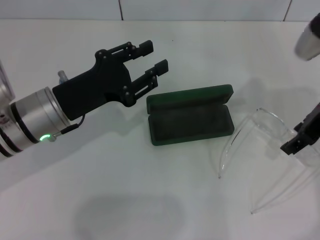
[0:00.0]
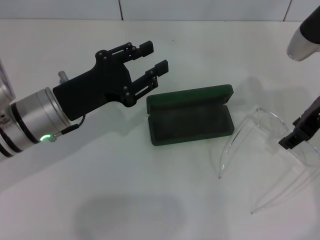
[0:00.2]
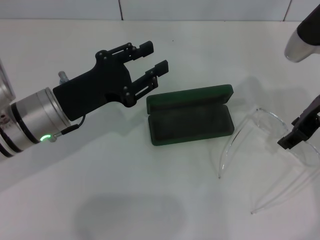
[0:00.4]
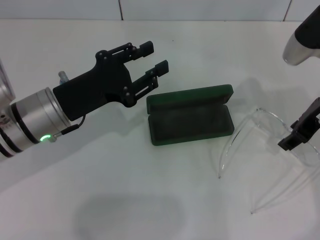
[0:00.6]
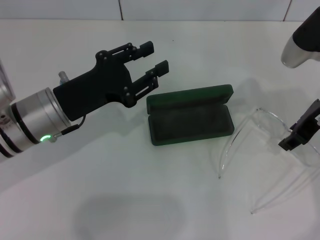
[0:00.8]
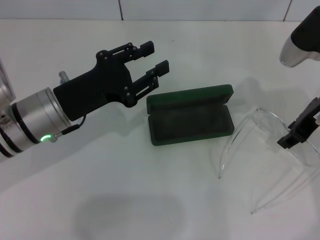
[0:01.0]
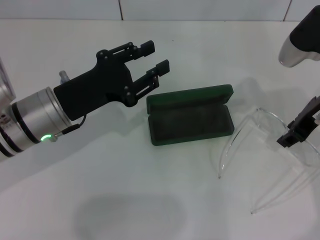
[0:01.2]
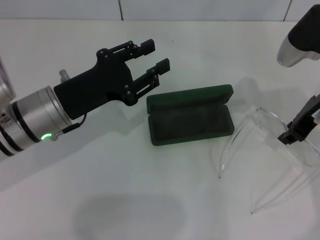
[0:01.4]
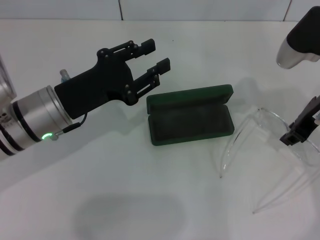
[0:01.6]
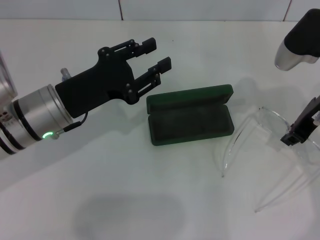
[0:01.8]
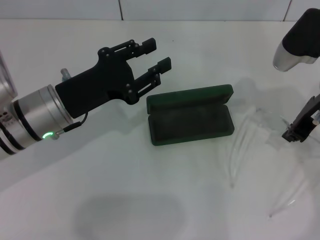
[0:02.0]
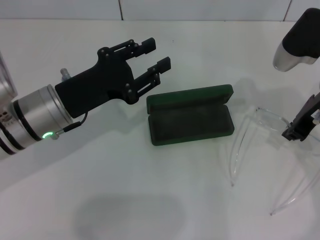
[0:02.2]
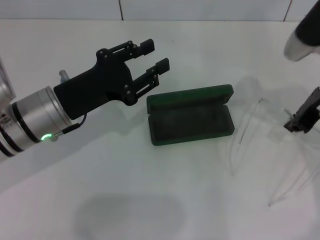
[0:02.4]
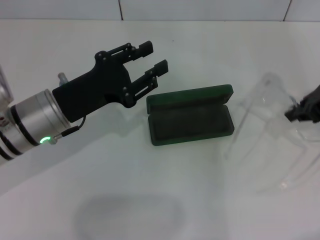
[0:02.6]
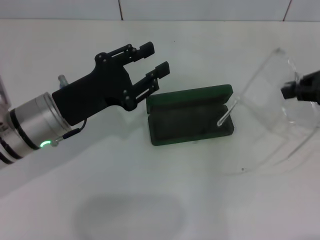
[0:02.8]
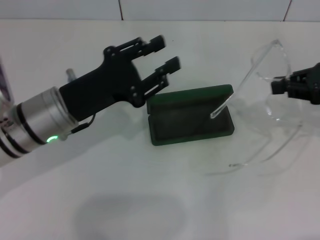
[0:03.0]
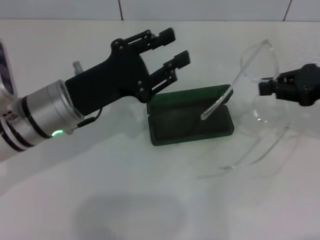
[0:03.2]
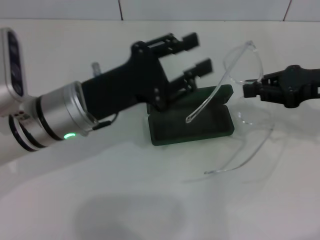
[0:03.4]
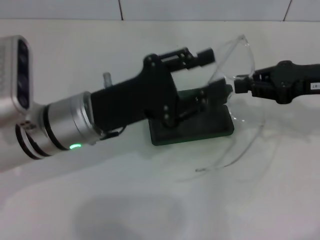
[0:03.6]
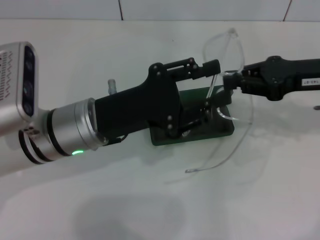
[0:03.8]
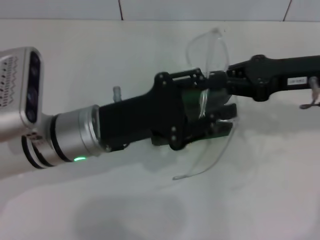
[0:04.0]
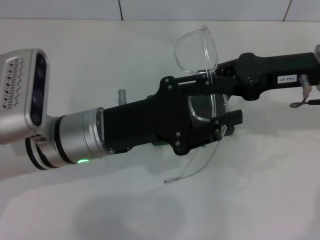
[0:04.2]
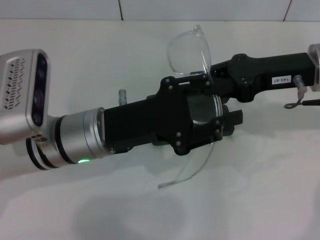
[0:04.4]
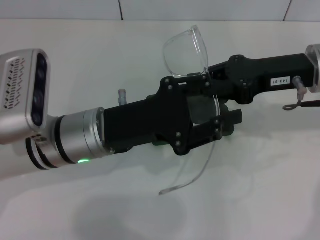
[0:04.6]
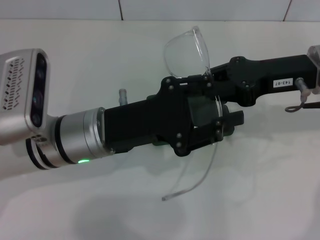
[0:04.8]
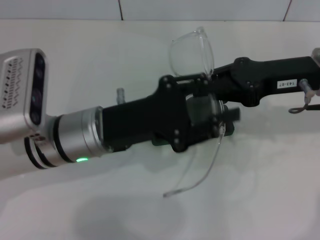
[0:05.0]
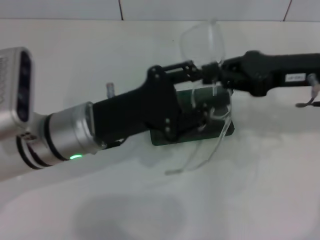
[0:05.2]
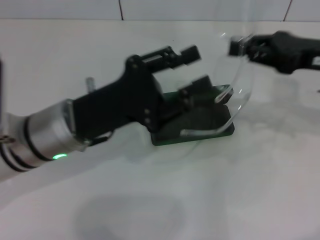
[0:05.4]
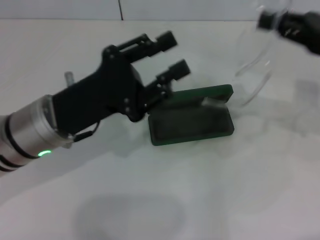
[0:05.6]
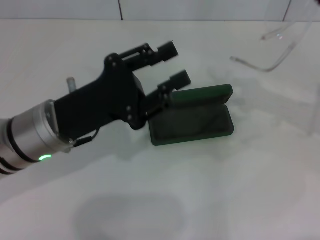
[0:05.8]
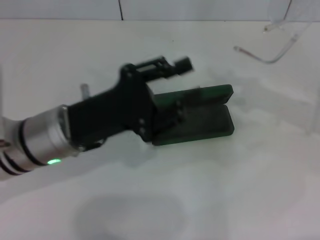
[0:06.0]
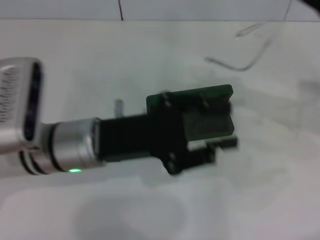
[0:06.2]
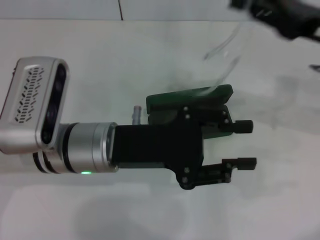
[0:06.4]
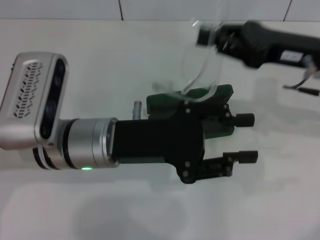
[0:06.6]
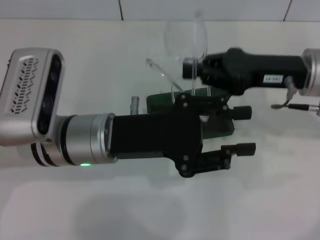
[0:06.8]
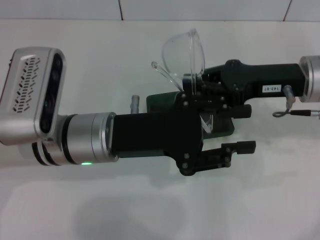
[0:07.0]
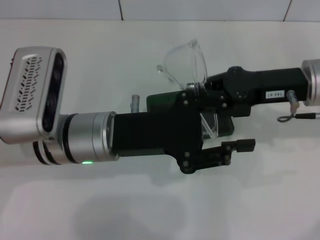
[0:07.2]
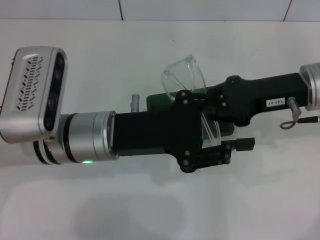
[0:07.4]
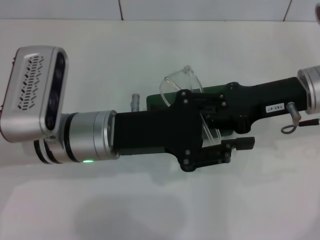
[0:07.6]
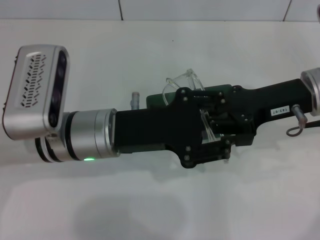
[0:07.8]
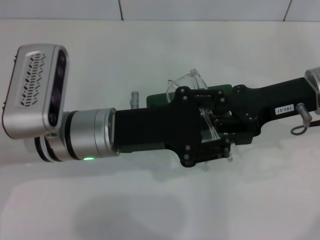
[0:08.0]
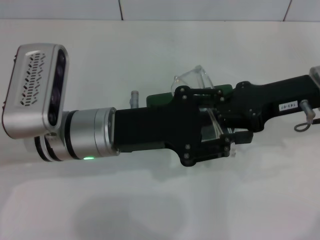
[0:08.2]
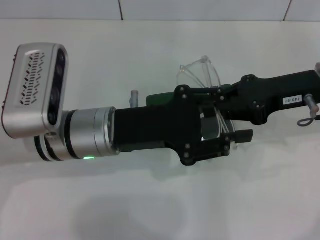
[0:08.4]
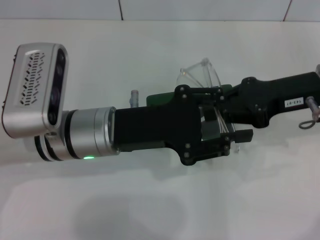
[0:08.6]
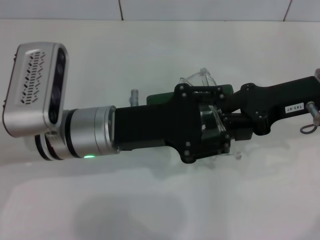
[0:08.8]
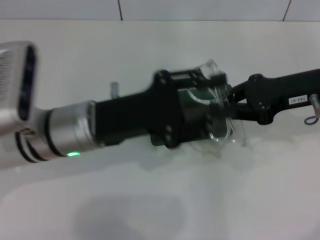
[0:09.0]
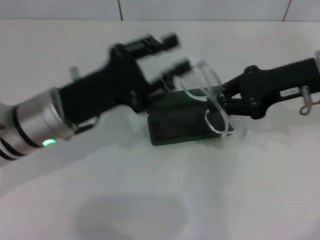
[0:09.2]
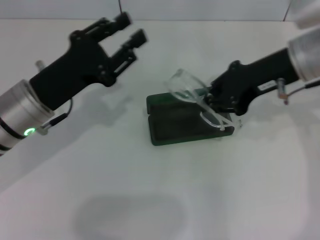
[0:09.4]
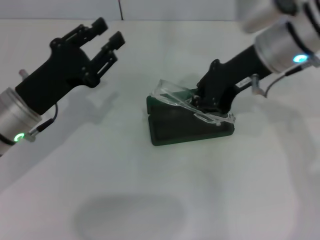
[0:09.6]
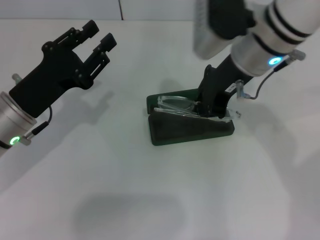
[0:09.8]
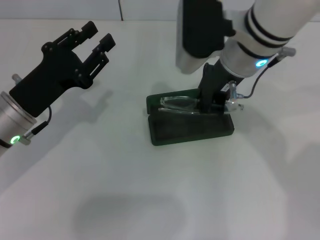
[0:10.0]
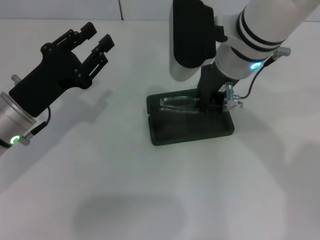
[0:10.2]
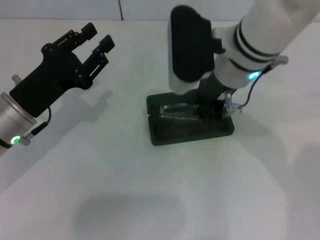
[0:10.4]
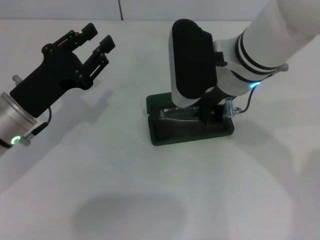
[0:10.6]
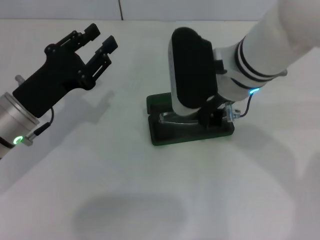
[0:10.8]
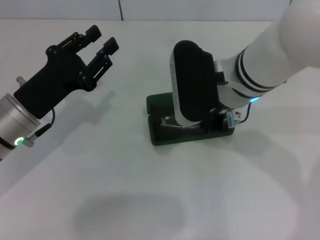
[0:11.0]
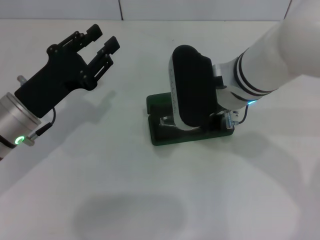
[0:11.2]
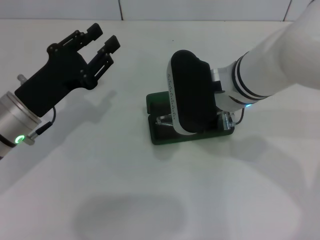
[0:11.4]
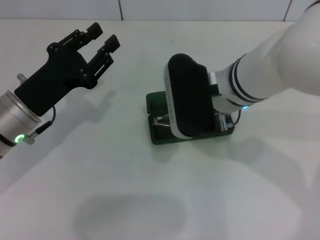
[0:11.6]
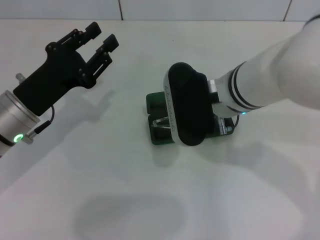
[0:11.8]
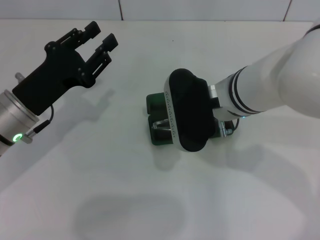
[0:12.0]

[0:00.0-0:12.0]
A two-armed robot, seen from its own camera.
Step, 0:02.2 to 0:07.8: Fold the frame with your left hand.
0:00.0 to 0:01.6: The right gripper closes up.
0:01.6 to 0:03.0: The right gripper shifts about 10 cm to the right.
0:03.0 to 0:04.4: The right gripper heads to the left, covering roughly 10 cm; the left gripper ends up about 5 cm from where it was.
0:04.4 to 0:06.0: The right gripper shifts roughly 10 cm to the right.
0:06.0 to 0:07.6: The right gripper heads to the left, covering approximately 10 cm.
0:09.0 to 0:10.4: The right gripper goes roughly 15 cm to the left; the left gripper moves to the left, approximately 10 cm.
0:10.4 to 0:12.0: The right gripper shifts by roughly 5 cm.

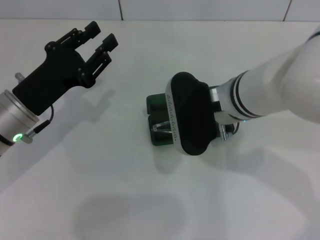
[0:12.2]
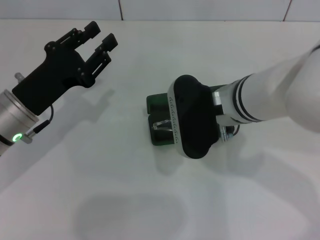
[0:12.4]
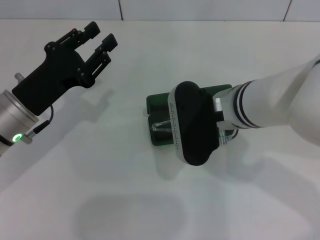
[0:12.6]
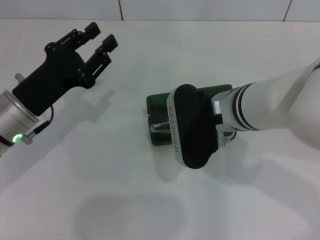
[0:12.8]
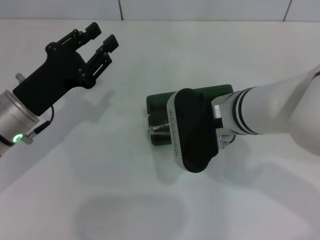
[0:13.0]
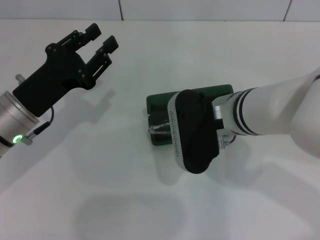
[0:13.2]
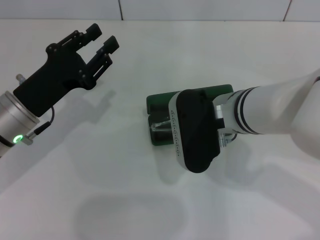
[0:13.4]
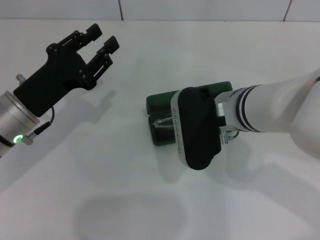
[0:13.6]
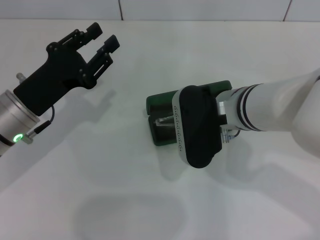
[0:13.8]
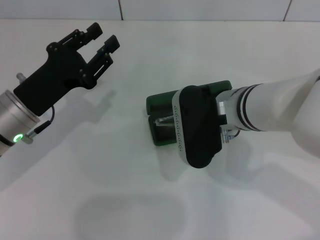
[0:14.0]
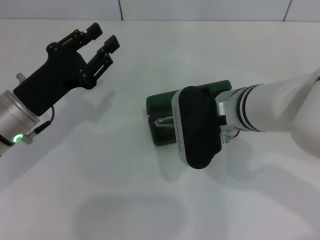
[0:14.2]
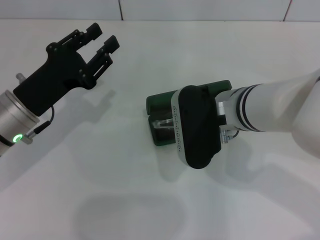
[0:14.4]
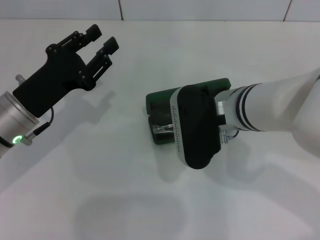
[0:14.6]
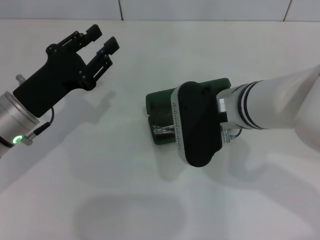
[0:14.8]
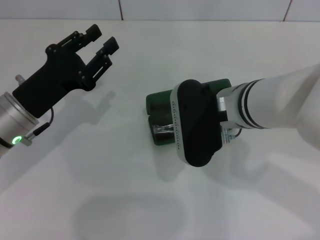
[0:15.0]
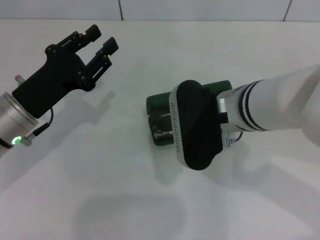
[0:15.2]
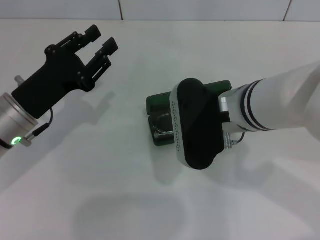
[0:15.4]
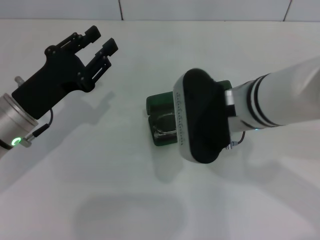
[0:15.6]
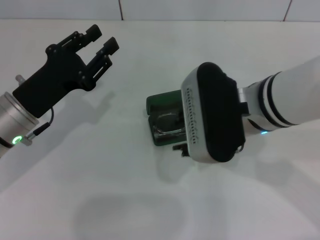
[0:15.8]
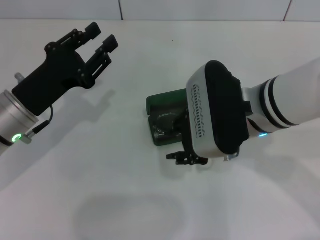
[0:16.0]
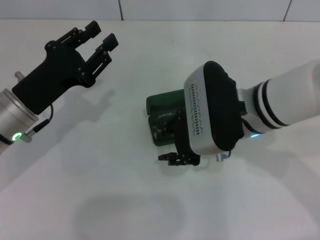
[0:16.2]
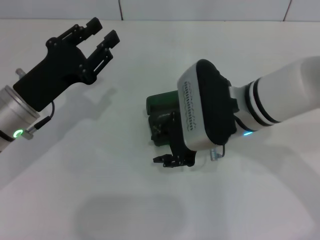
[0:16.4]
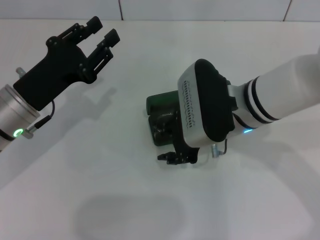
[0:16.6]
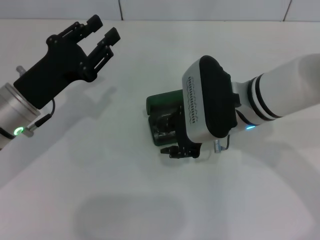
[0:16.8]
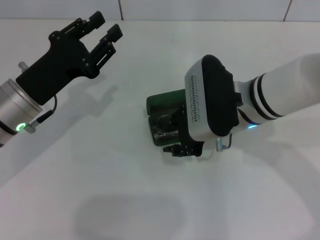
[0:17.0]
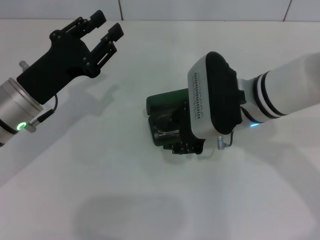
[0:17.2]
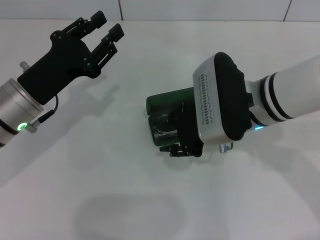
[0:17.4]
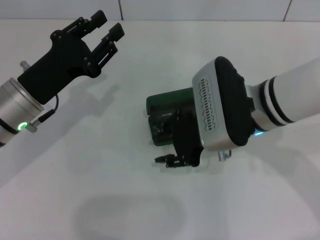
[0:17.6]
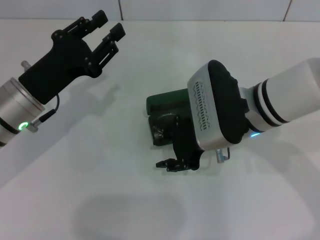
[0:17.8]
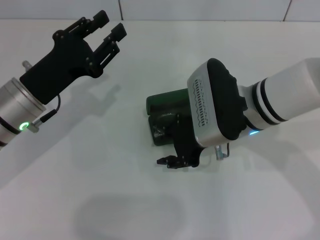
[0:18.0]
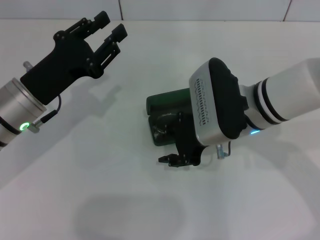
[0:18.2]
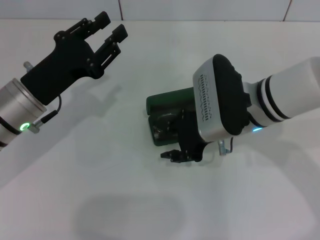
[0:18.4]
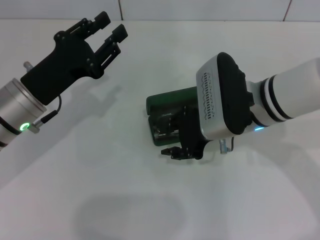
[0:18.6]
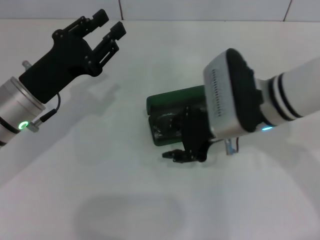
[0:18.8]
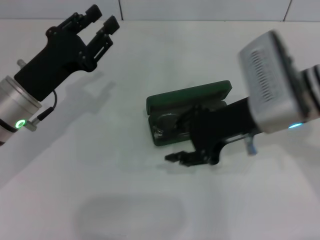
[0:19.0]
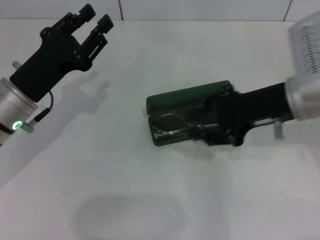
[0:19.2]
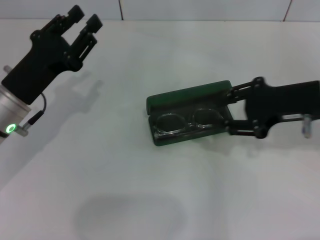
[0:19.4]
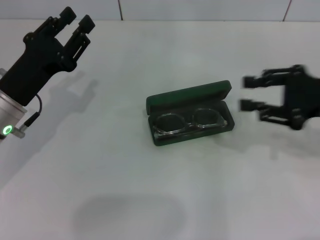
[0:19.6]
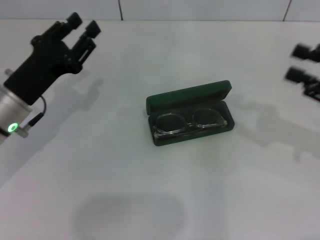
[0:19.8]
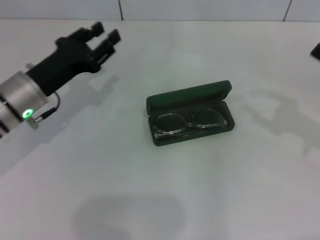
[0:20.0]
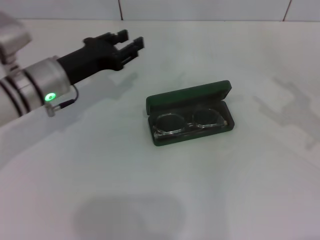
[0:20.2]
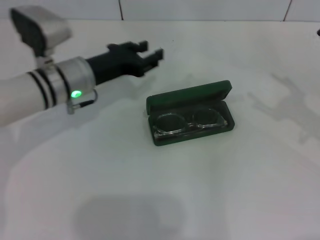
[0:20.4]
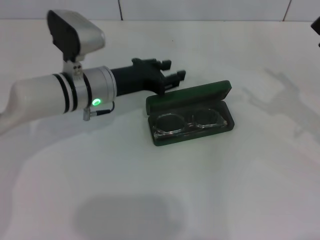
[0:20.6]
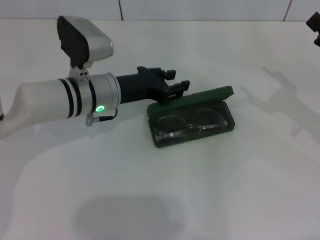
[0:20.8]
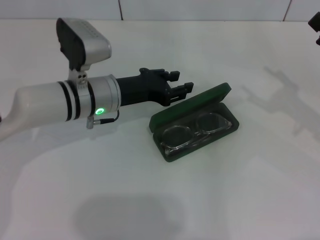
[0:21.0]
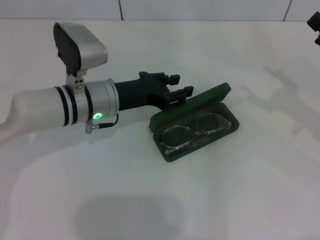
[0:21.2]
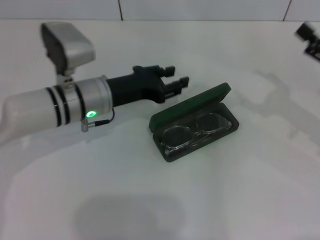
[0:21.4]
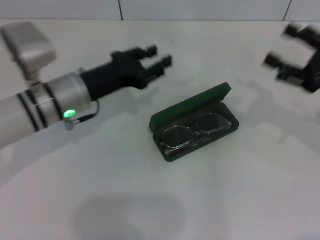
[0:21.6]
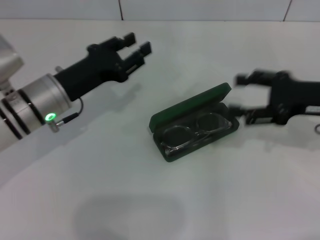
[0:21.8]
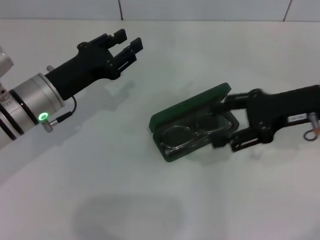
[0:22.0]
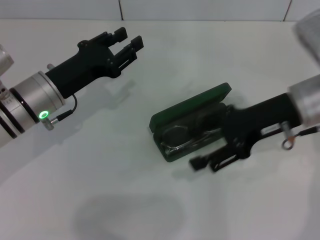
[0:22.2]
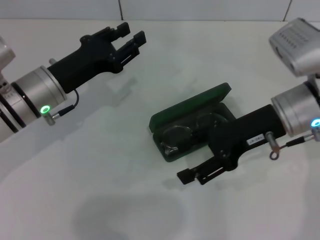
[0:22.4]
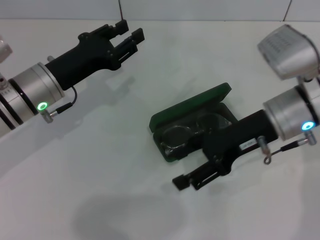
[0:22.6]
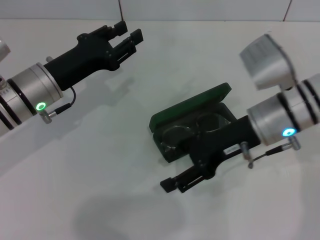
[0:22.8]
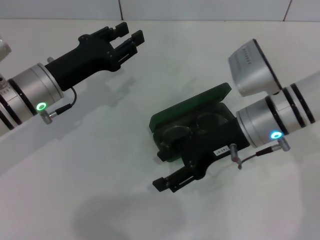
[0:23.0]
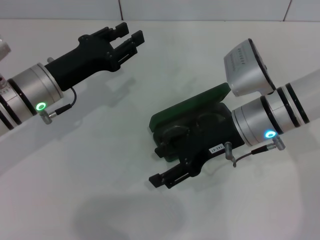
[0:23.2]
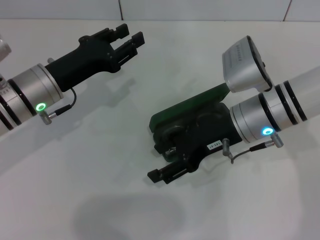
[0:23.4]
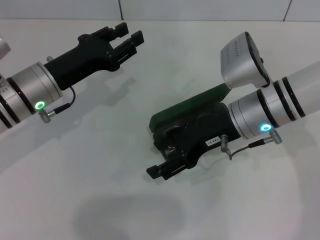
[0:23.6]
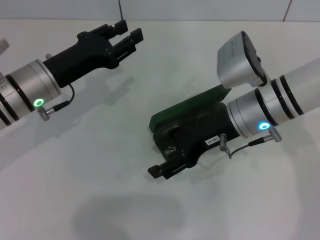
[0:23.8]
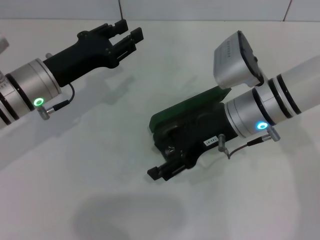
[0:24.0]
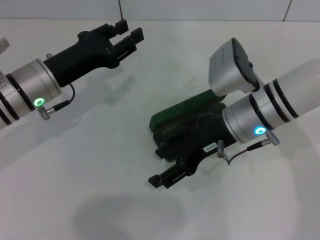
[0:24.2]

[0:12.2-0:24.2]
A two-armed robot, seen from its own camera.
0:12.2 to 0:13.8: There are only small adjustments of the grippers.
0:13.8 to 0:15.2: The right gripper opens.
0:16.6 to 0:18.2: There are only small adjustments of the grippers.
0:18.2 to 0:19.8: The right gripper is displaced to the right by roughly 25 cm.
0:19.8 to 0:21.2: The right gripper opens its fingers, while the left gripper moves to the right and forward, approximately 10 cm.
0:21.2 to 0:22.6: The left gripper goes about 5 cm to the left. Meanwhile the right gripper heads to the left, covering roughly 15 cm.
0:22.6 to 0:24.2: The right gripper heads to the left, covering approximately 5 cm.
